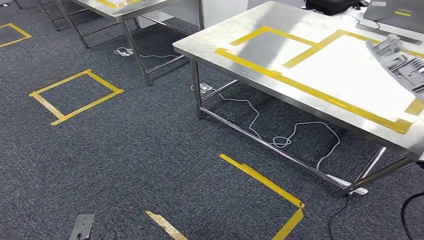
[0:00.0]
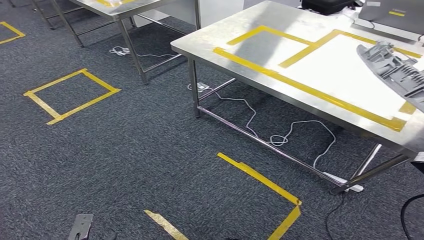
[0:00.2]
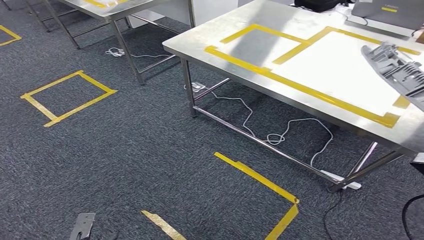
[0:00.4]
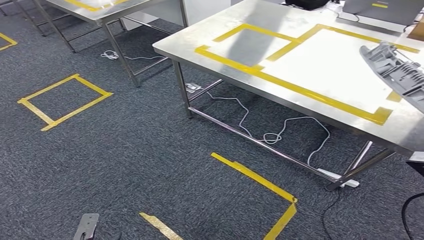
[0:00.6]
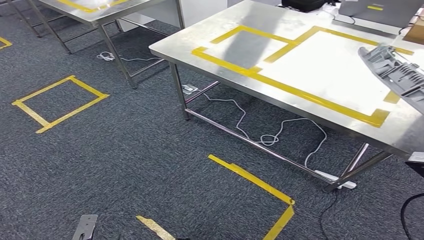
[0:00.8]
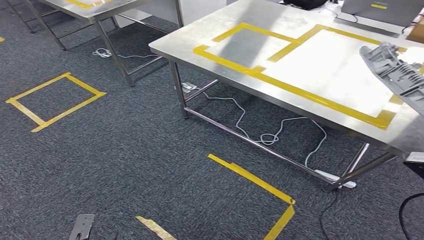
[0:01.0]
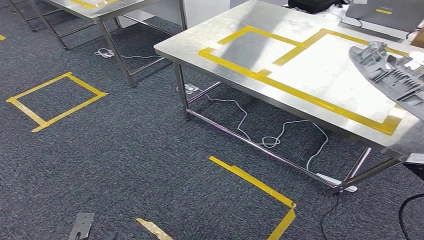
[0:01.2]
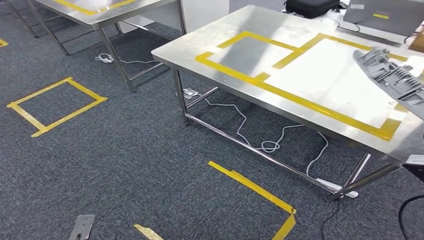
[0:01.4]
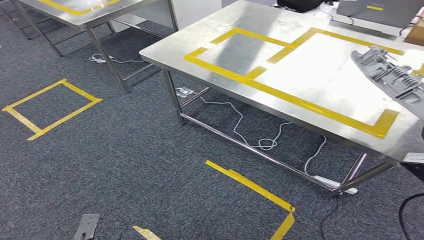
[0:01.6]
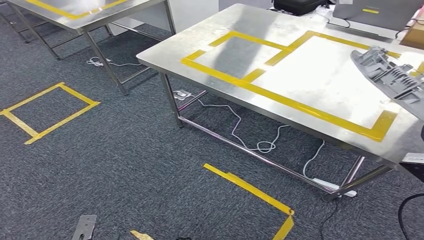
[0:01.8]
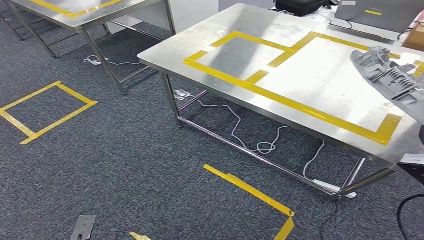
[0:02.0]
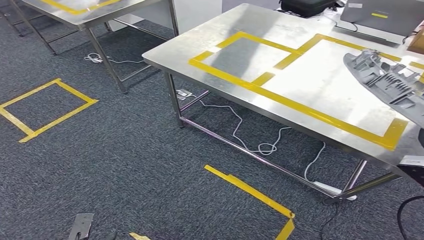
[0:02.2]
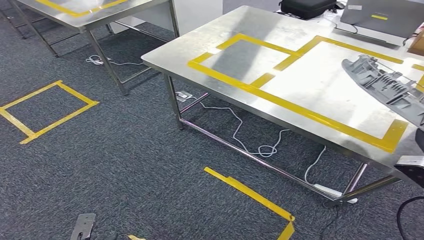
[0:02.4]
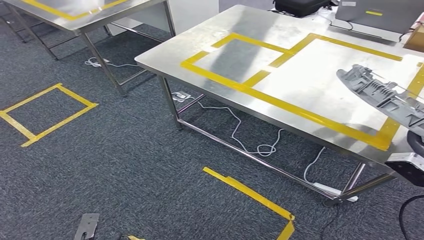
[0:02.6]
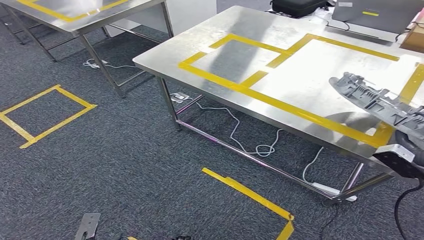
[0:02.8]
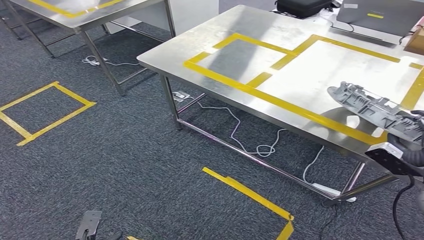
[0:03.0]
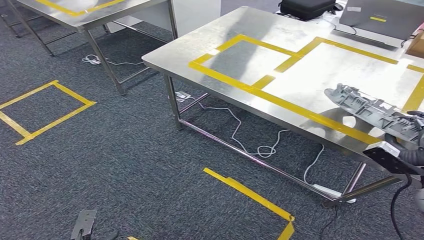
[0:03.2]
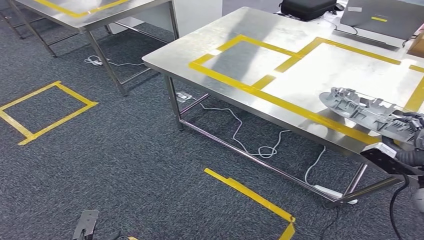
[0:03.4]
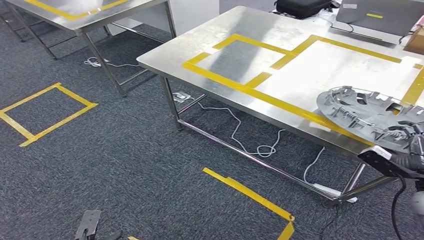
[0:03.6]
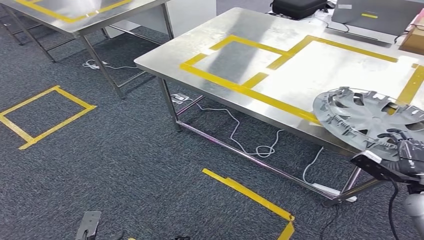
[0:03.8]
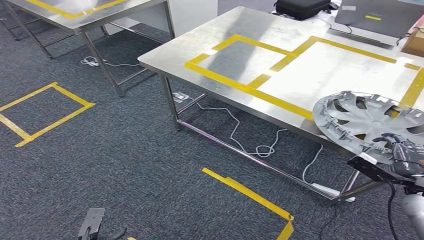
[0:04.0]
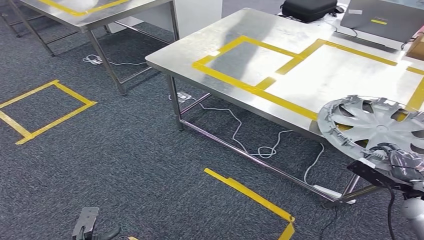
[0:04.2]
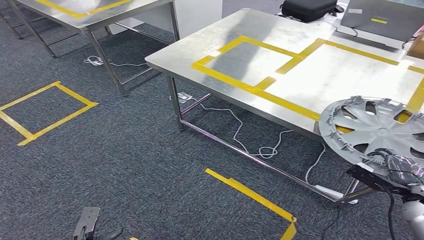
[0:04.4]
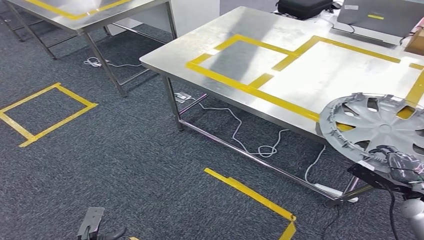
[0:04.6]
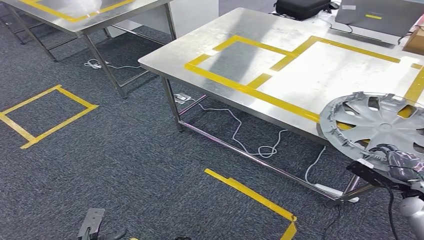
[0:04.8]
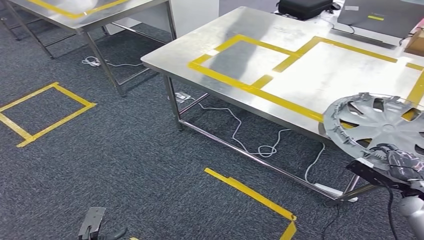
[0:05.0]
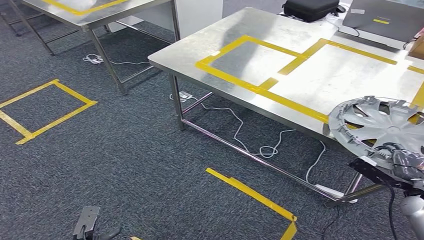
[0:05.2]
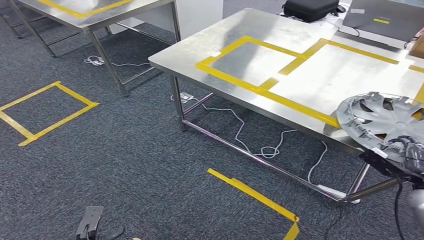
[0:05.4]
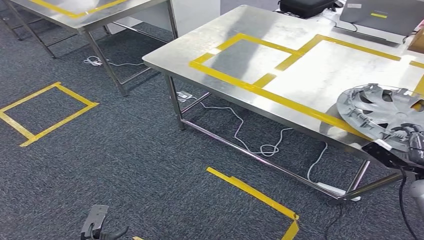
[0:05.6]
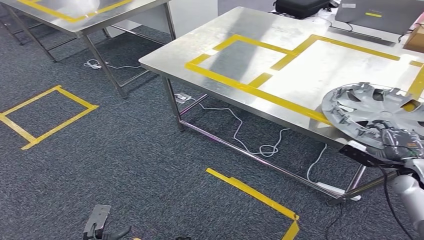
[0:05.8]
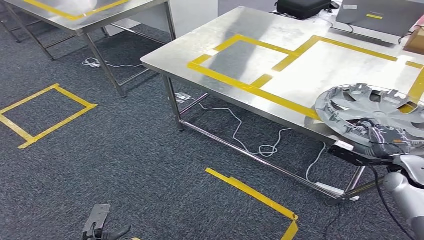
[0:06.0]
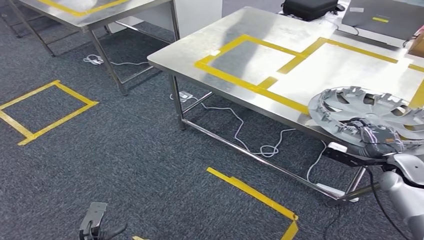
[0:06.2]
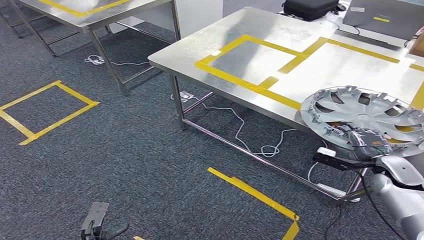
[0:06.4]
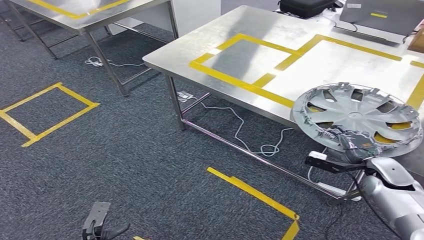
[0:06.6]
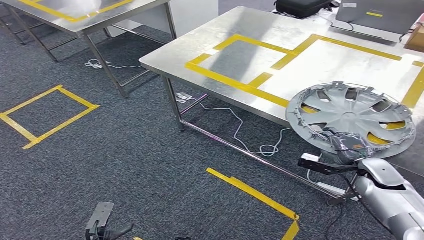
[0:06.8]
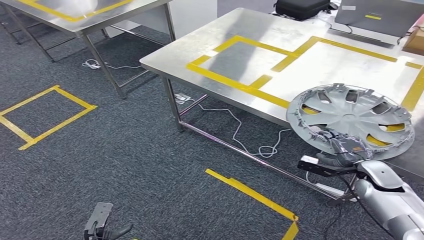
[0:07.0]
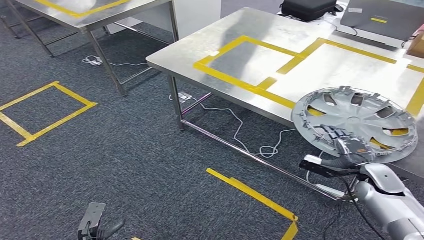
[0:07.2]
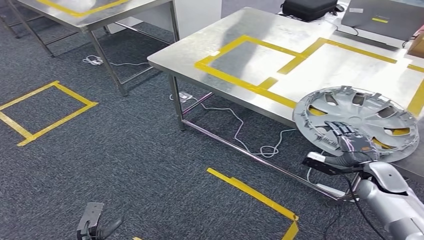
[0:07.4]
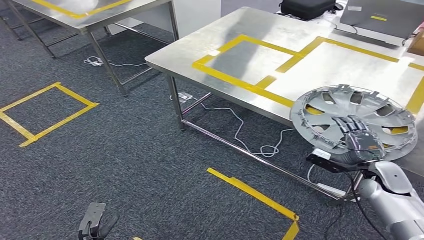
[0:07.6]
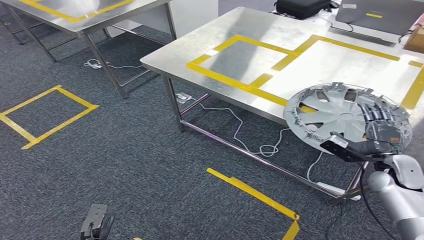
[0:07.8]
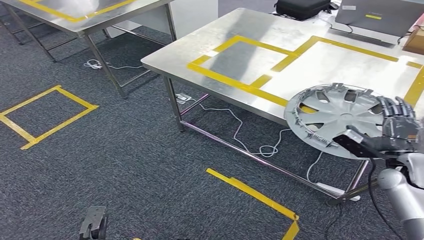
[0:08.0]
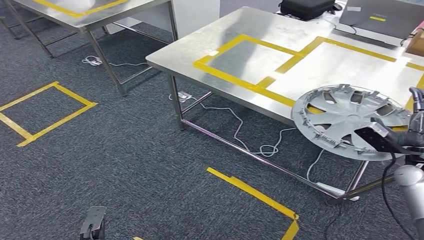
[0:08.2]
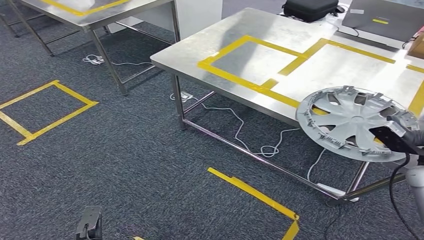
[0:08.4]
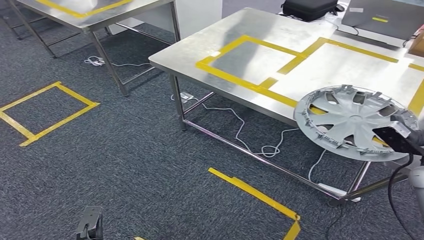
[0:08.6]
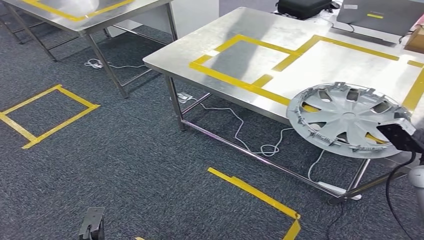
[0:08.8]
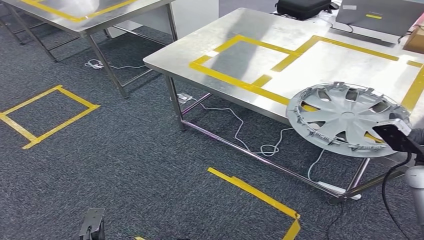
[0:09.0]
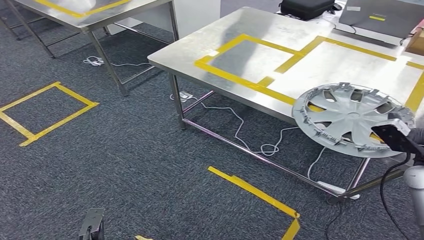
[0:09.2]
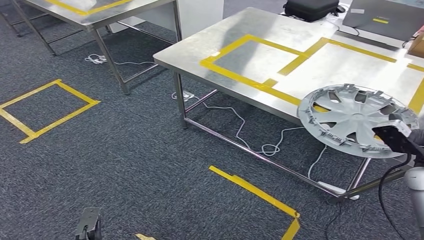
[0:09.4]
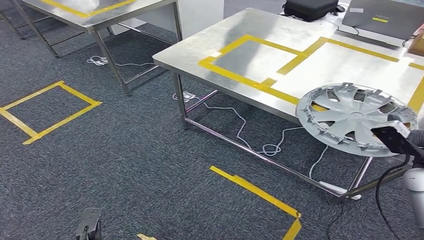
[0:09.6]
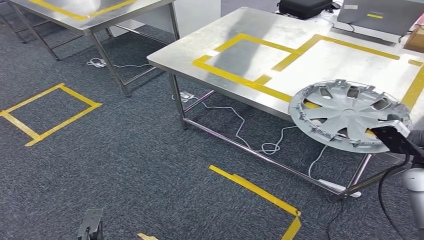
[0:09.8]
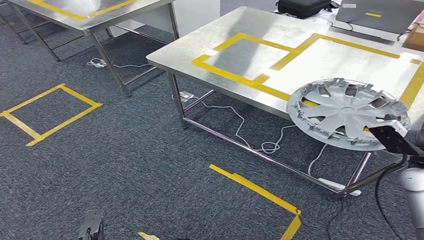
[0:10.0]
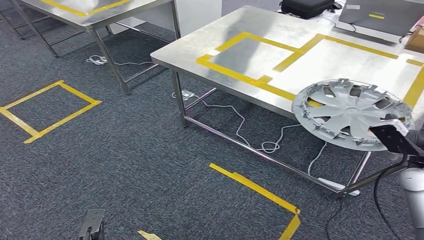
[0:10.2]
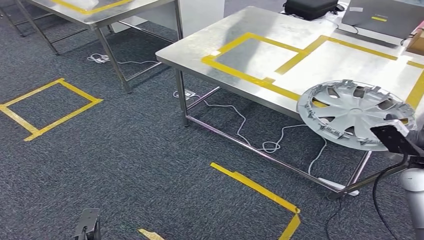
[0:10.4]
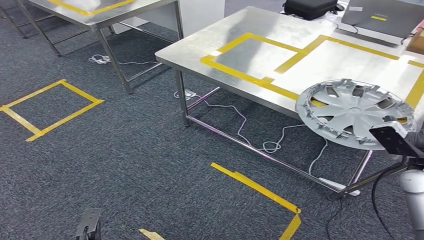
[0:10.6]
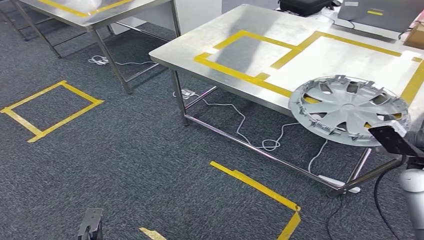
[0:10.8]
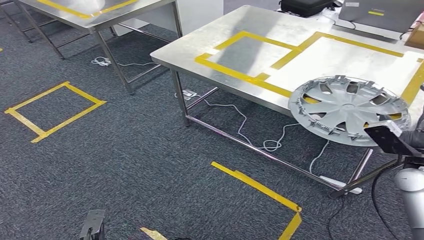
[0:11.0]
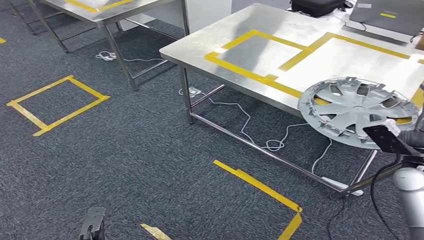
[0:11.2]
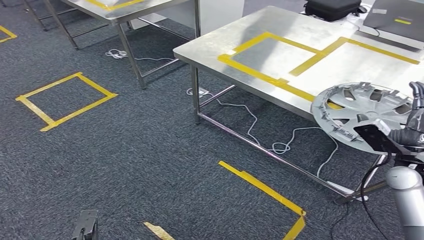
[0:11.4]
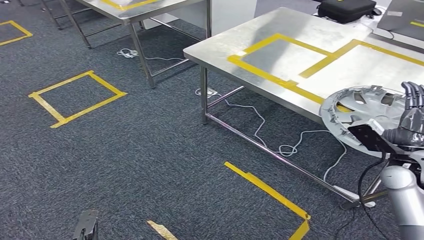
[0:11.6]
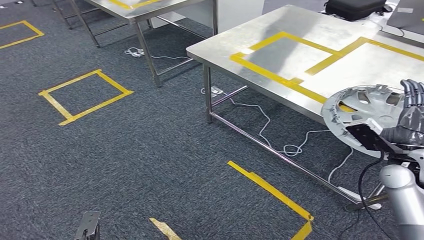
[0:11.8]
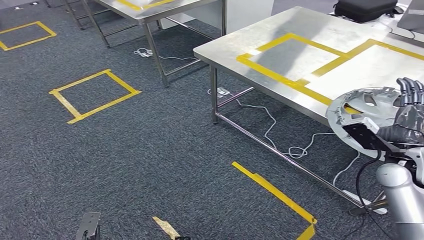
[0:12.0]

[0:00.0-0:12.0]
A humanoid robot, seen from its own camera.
Step, 0:02.0 to 0:10.2: Insert the small parts into the corresponding slots on the workbench.
0:03.0 to 0:04.4: The right hand travels downward by about 10 cm.
0:06.0 to 0:07.6: The right hand heads to the left, covering some 5 cm.
0:07.6 to 0:09.0: The right hand shifts about 10 cm upward.

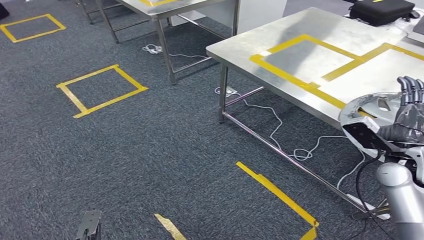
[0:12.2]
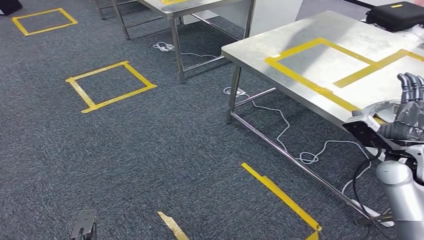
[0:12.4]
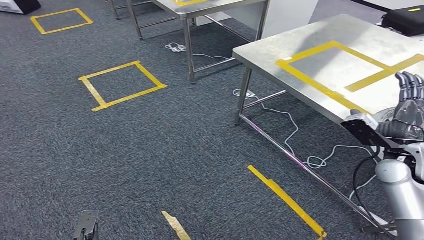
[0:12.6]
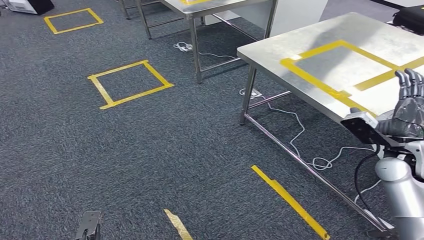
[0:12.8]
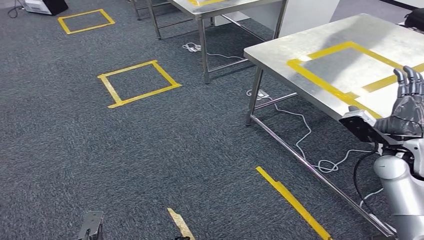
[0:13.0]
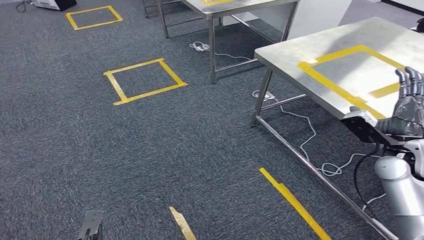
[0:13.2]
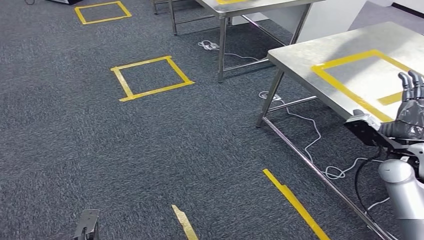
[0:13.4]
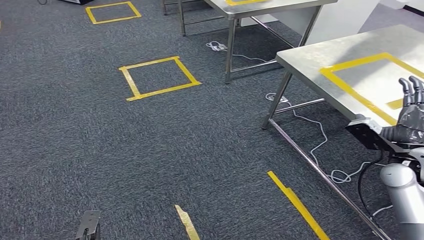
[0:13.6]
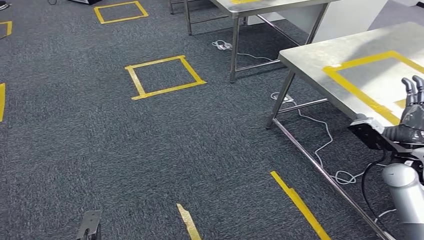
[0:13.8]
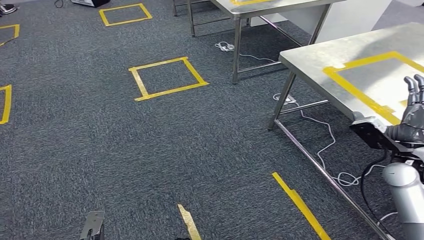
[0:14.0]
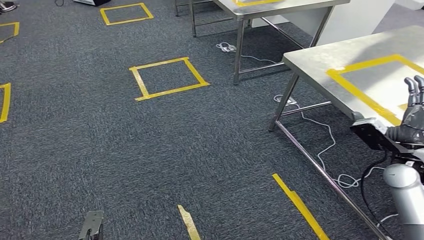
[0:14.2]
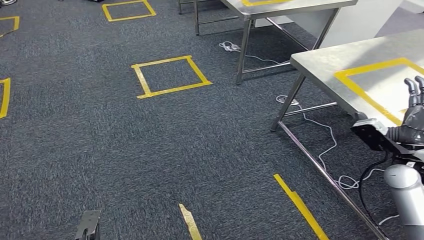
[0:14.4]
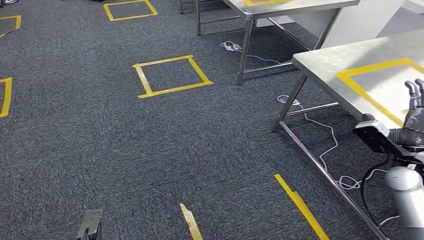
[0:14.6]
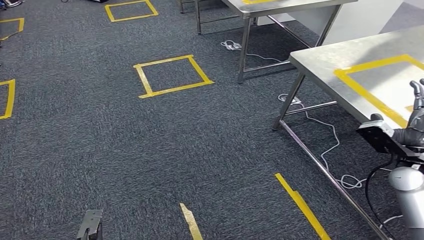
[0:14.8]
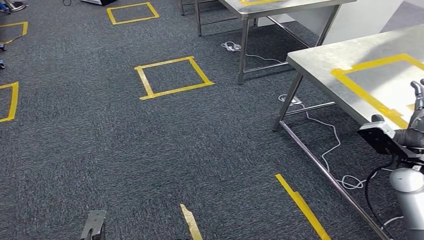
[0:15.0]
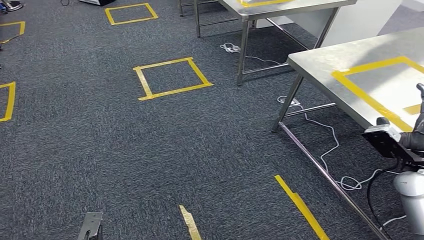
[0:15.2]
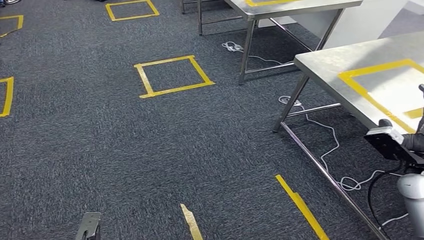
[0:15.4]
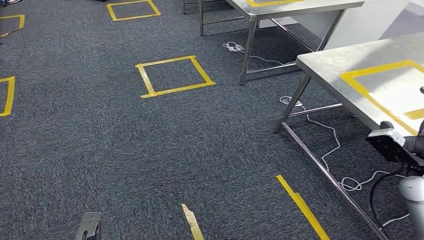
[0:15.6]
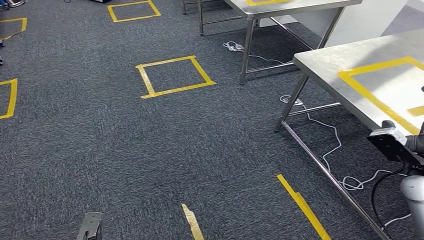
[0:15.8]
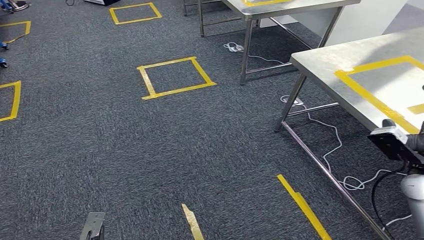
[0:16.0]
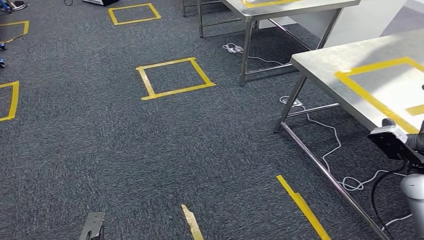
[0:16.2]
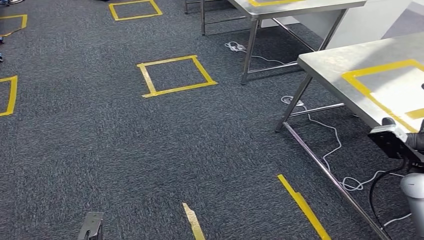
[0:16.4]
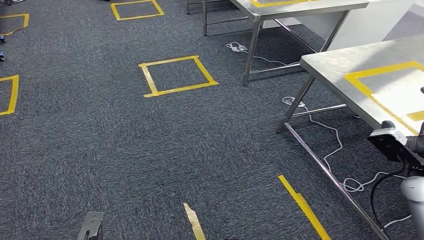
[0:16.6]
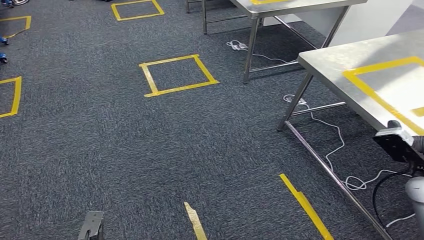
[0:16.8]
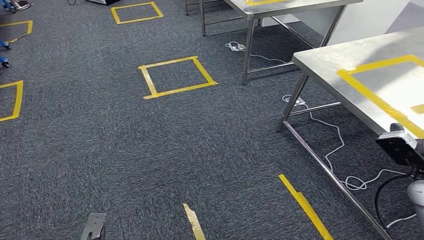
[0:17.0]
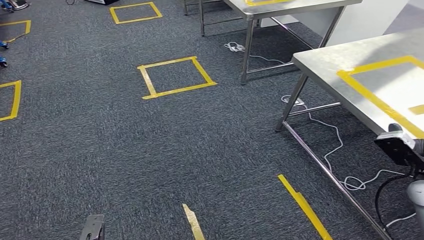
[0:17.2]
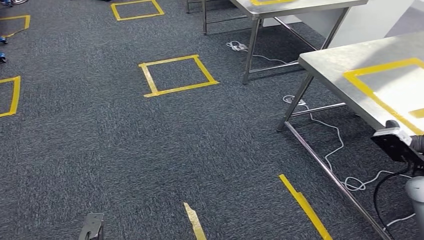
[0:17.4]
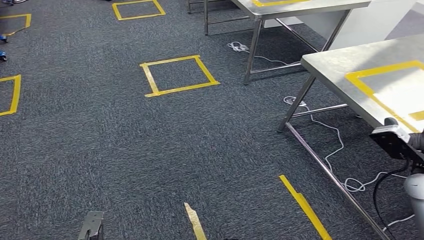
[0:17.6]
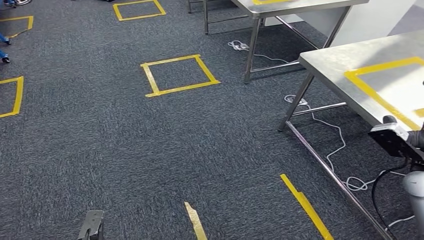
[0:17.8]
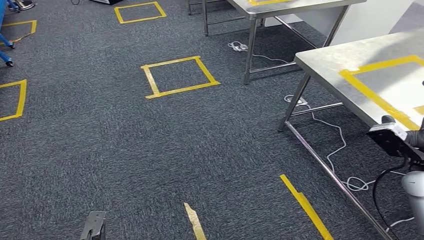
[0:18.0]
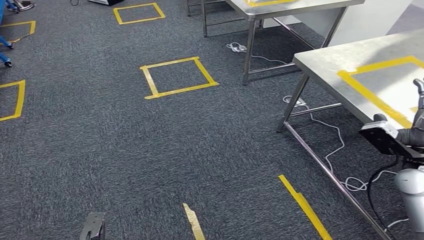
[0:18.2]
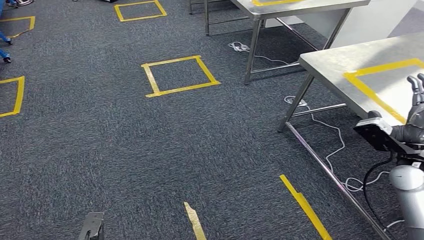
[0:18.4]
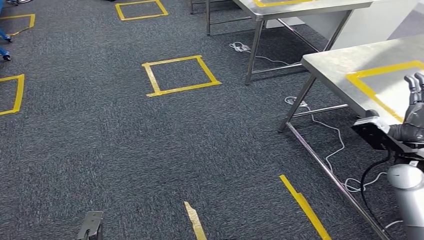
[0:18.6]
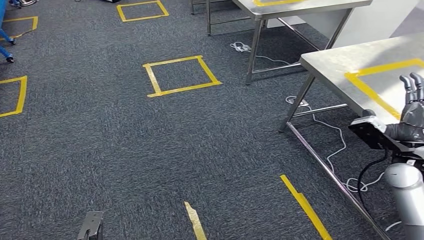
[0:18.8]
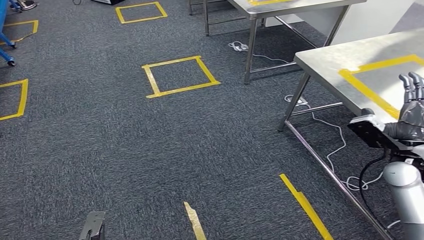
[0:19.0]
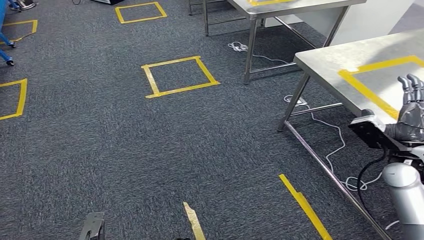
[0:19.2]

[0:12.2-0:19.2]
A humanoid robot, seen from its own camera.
0:15.0 to 0:19.2: There are only small adjustments of the hands.
